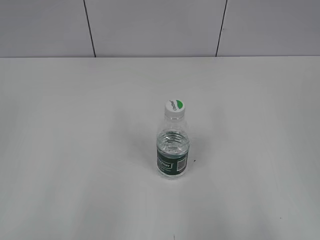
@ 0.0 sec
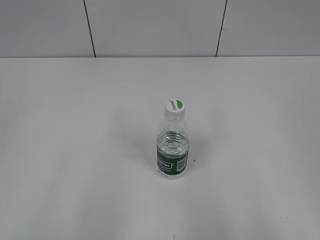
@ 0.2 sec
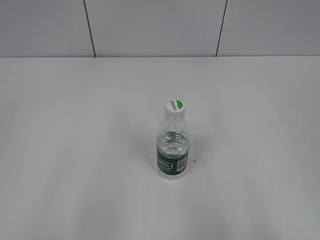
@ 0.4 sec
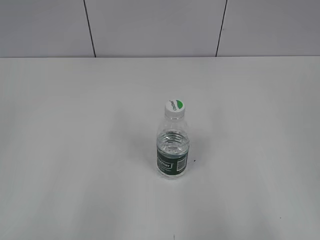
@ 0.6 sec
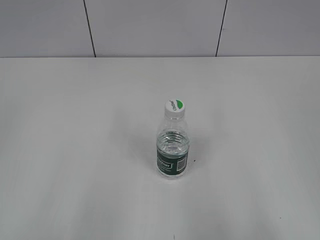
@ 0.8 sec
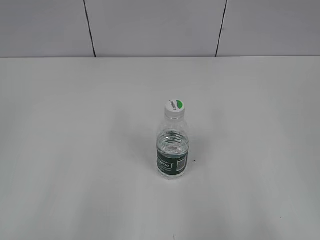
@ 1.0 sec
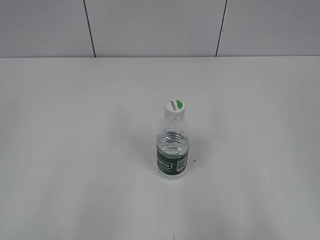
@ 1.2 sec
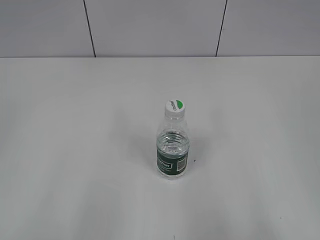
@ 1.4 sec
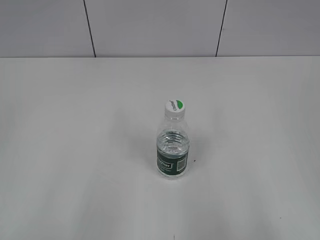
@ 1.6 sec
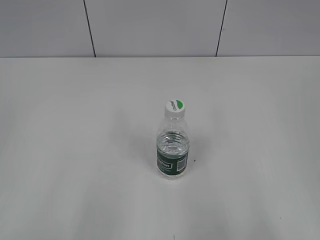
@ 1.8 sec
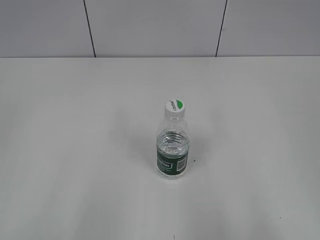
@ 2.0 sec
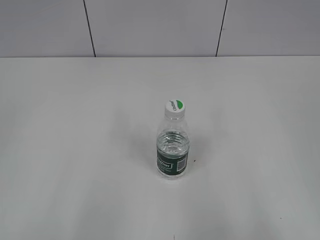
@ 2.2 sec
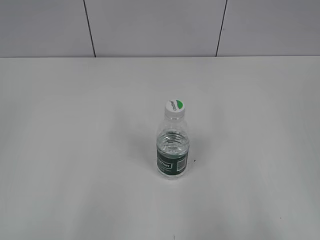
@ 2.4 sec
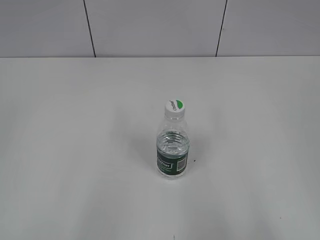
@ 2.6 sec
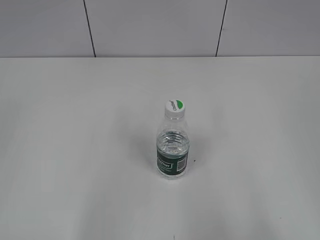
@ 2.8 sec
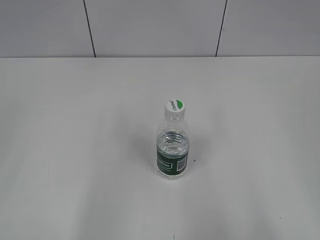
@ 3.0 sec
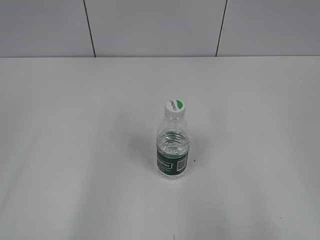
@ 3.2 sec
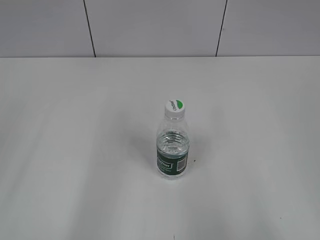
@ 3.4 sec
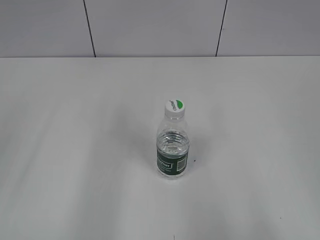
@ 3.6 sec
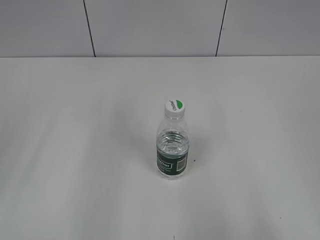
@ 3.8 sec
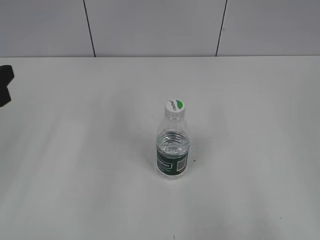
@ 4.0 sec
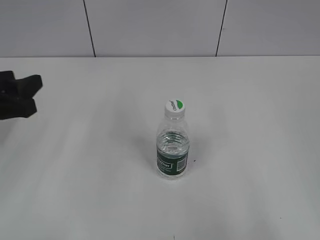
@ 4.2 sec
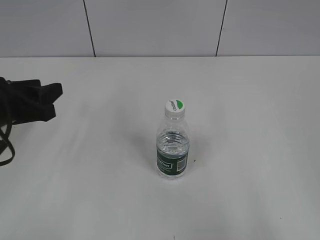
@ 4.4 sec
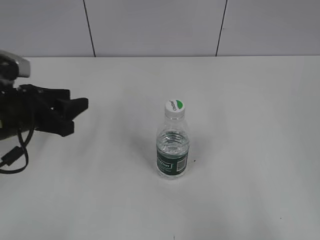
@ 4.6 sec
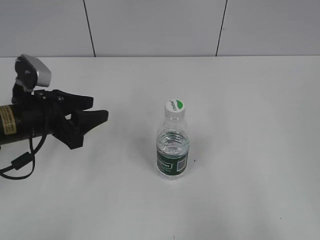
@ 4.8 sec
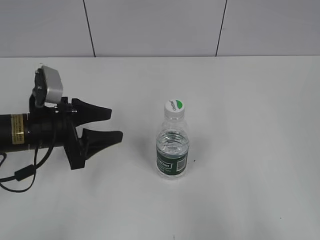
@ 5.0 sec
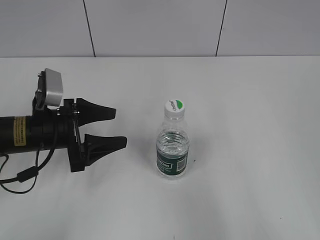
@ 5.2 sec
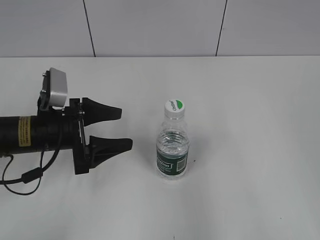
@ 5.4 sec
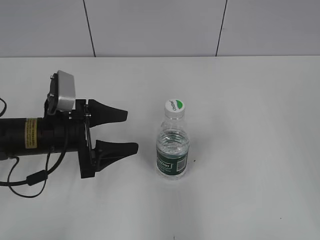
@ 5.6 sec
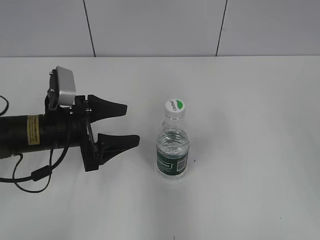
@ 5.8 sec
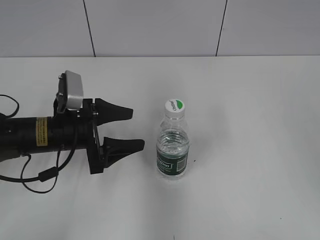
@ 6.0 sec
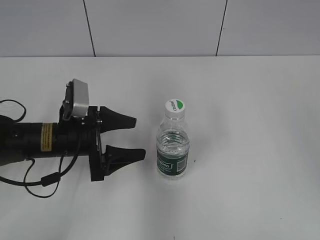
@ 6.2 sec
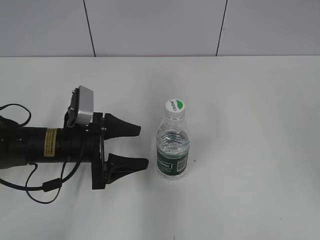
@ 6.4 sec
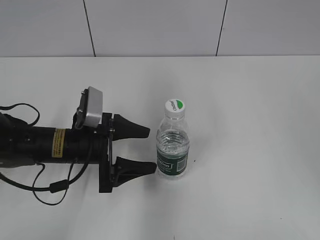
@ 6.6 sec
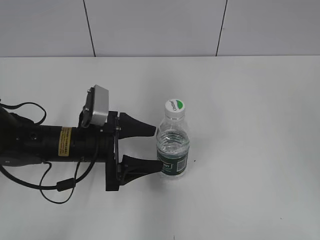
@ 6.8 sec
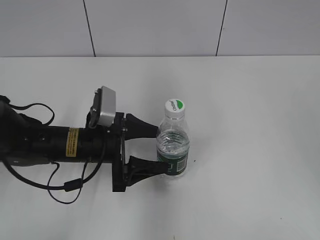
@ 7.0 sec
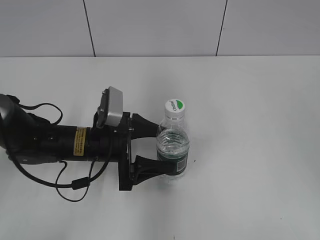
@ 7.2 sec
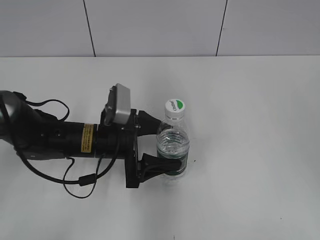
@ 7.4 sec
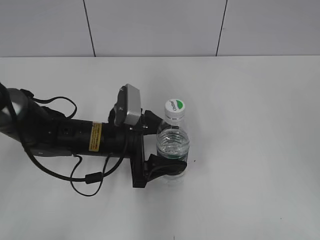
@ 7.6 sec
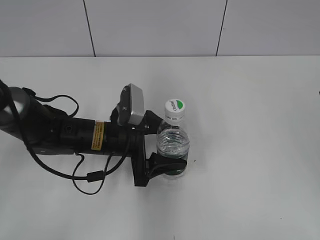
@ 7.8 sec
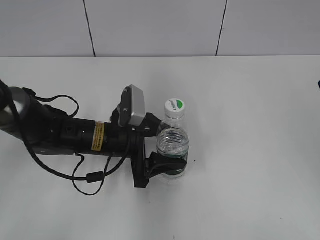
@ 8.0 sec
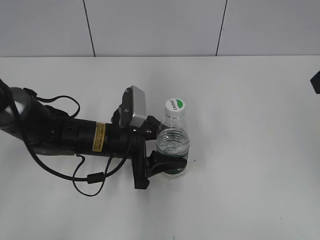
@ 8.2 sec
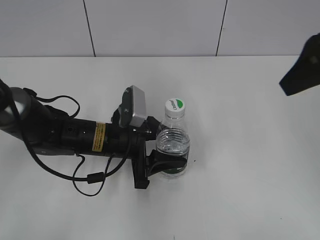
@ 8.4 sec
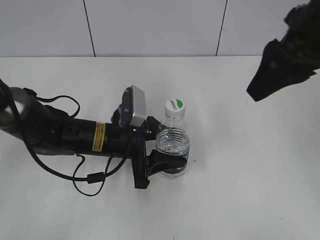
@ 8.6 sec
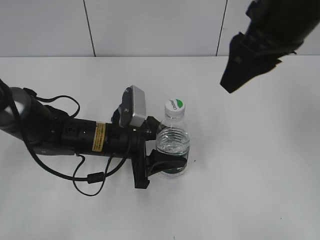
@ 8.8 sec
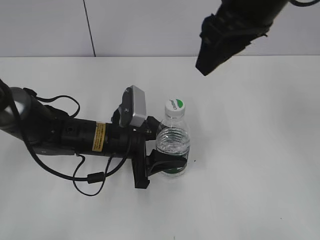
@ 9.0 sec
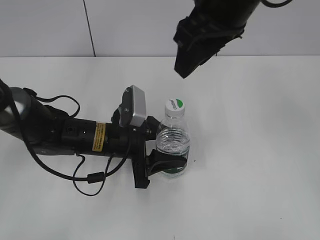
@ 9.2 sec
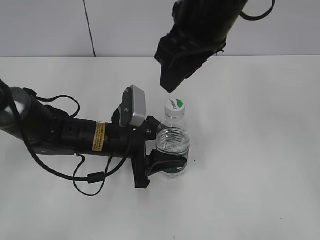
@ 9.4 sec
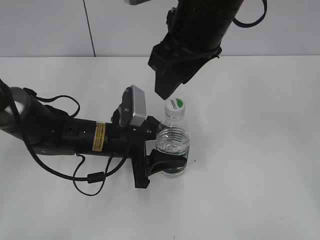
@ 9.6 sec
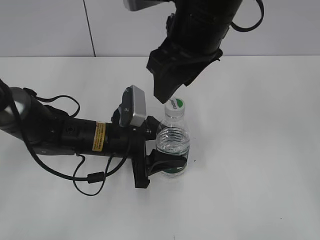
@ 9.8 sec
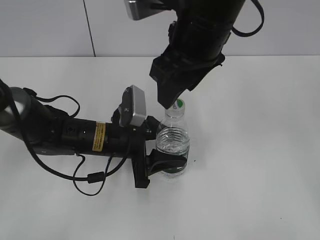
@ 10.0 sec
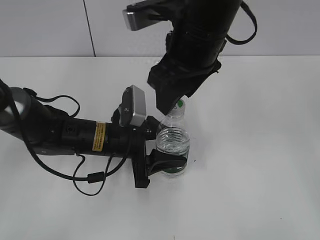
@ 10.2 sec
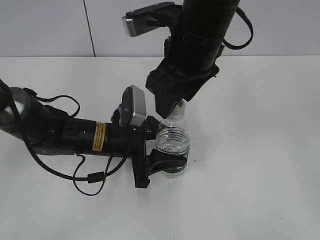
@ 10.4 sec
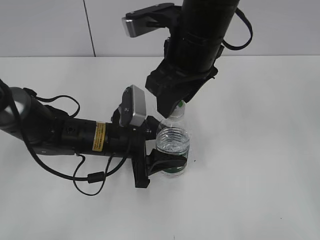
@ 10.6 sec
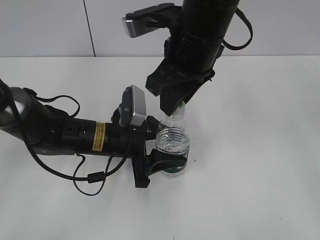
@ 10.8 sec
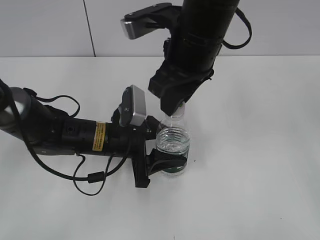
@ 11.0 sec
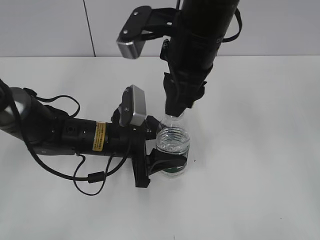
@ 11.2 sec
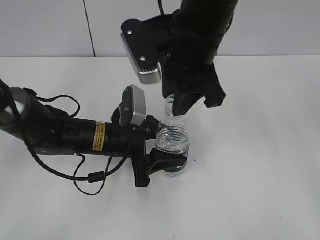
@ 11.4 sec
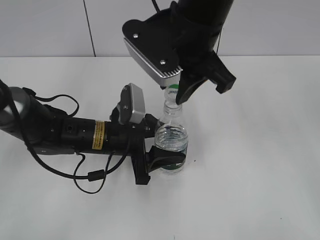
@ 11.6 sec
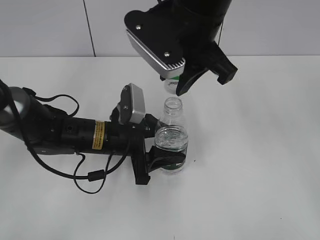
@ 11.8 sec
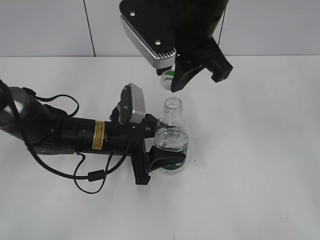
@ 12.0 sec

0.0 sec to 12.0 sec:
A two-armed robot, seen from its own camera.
Step, 0.0 sec to 8.4 sec: Grasp the bottle and move it to the center of the table with the left gripper.
Step, 8.6 sec to 11.6 sec: Unscrew the bottle cap with the right gripper while holding the bottle with the left gripper.
3.0 sec to 4.4 sec: The left gripper travels forward and downward by approximately 25 cm.
4.4 sec to 6.0 sec: The left gripper is displaced to the right and downward by some 10 cm, and opens its fingers, while the right gripper shifts approximately 15 cm forward.
6.0 sec to 7.6 sec: The left gripper is displaced to the right by some 10 cm.
7.6 sec to 9.0 sec: The left gripper closes up; the right gripper shifts approximately 20 cm to the left and forward, and closes up.
9.0 sec to 10.4 sec: The right gripper travels downward and to the left by some 10 cm, and opens.
10.4 sec to 12.0 sec: The right gripper closes up.

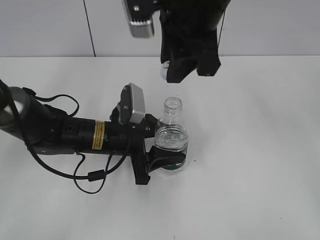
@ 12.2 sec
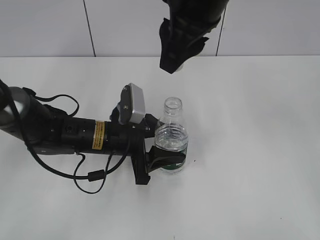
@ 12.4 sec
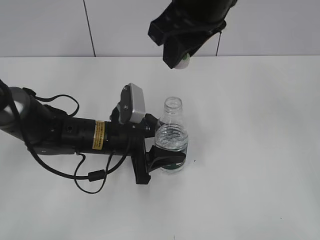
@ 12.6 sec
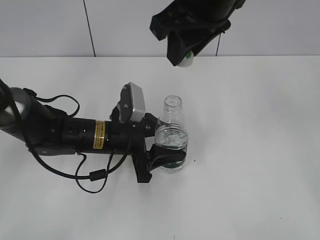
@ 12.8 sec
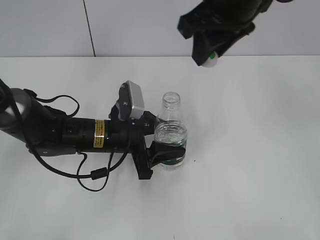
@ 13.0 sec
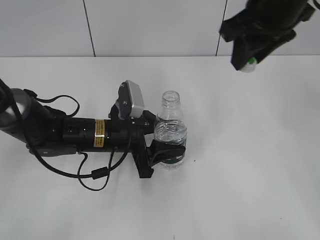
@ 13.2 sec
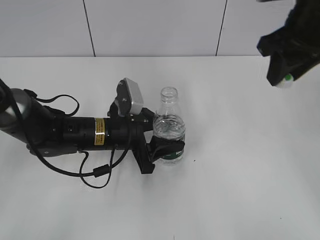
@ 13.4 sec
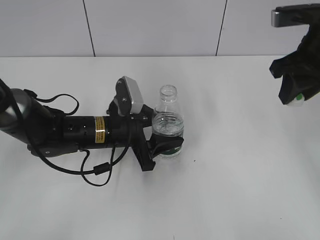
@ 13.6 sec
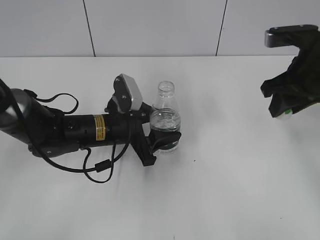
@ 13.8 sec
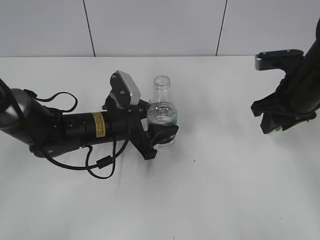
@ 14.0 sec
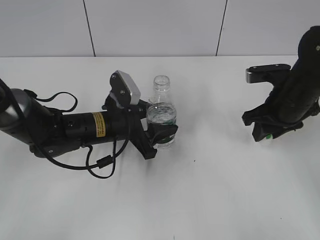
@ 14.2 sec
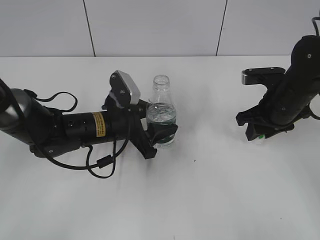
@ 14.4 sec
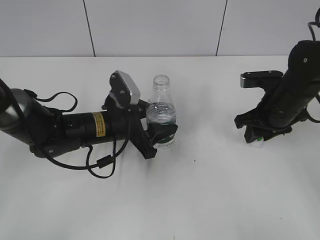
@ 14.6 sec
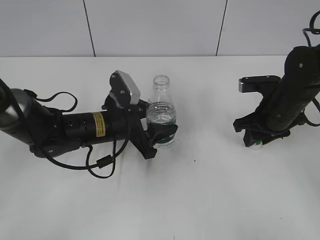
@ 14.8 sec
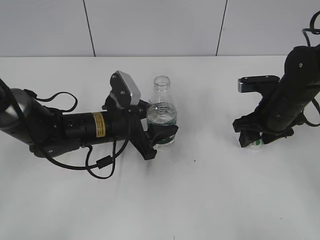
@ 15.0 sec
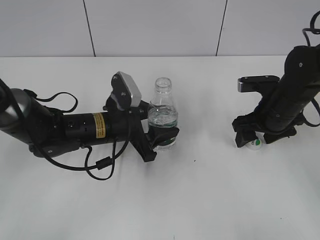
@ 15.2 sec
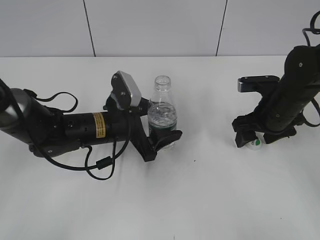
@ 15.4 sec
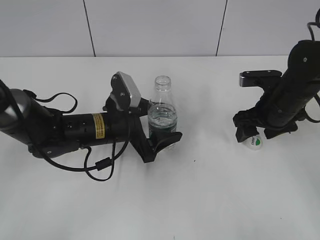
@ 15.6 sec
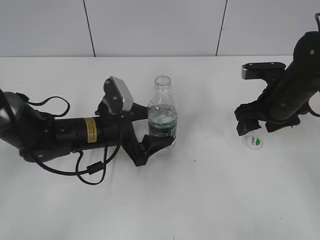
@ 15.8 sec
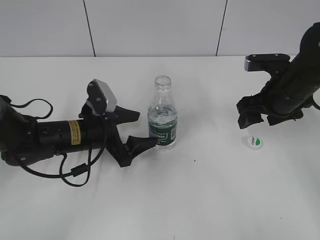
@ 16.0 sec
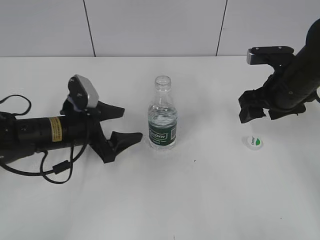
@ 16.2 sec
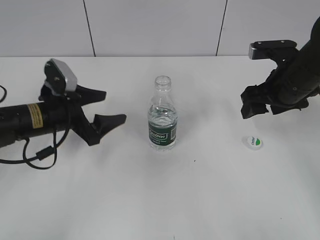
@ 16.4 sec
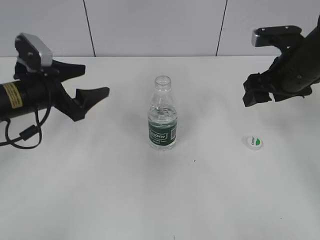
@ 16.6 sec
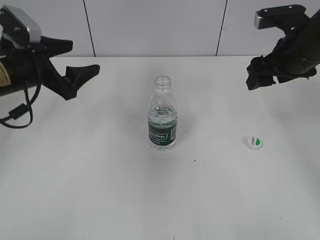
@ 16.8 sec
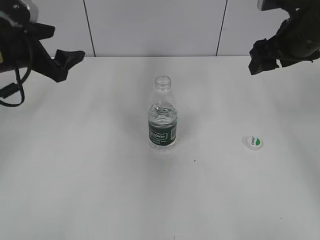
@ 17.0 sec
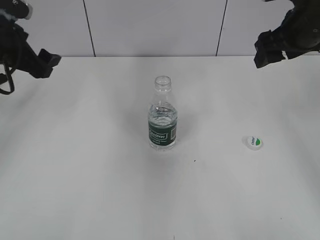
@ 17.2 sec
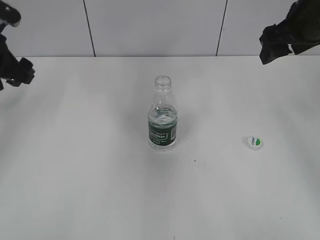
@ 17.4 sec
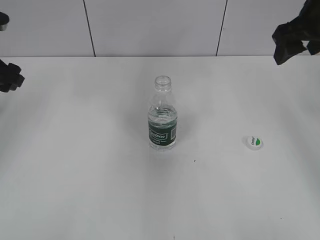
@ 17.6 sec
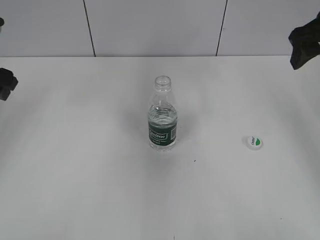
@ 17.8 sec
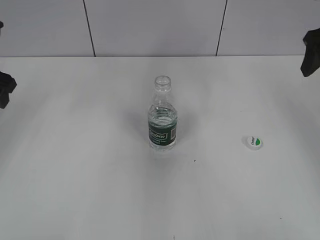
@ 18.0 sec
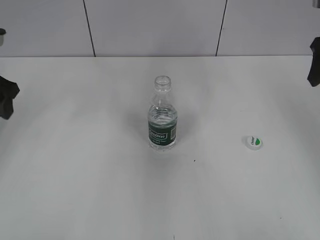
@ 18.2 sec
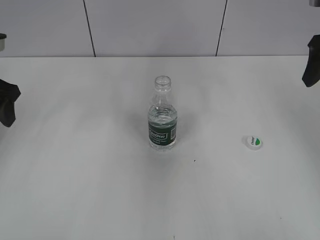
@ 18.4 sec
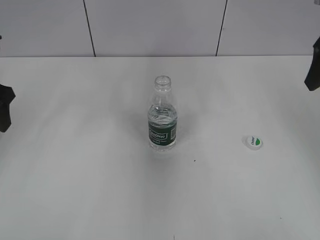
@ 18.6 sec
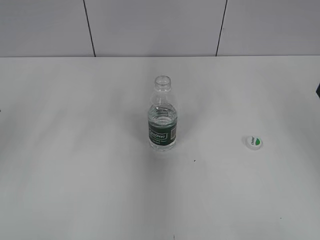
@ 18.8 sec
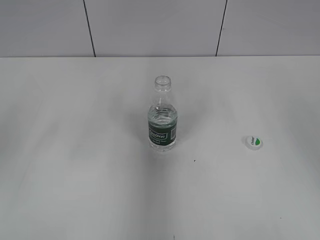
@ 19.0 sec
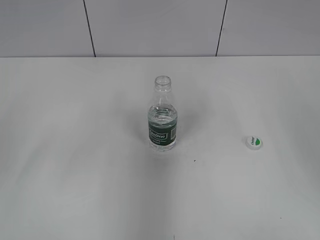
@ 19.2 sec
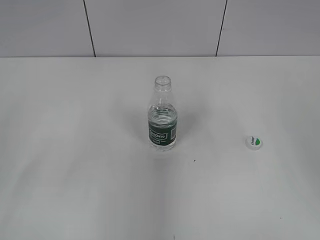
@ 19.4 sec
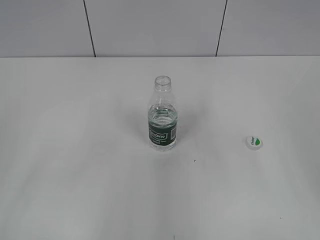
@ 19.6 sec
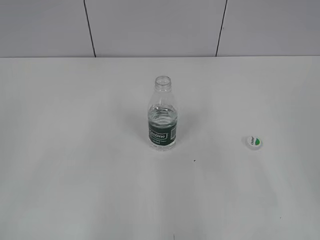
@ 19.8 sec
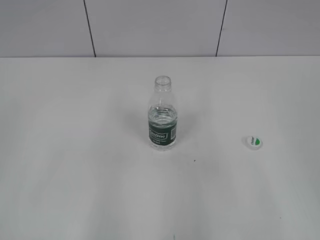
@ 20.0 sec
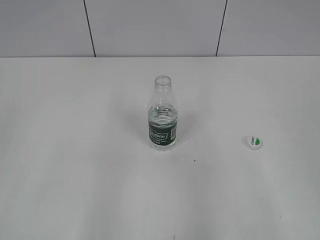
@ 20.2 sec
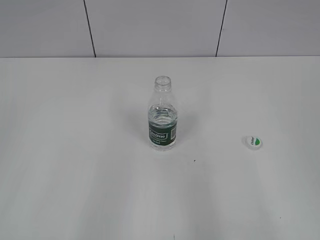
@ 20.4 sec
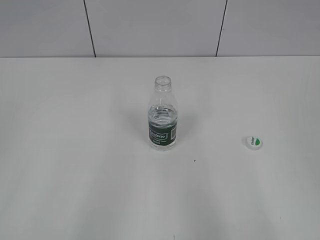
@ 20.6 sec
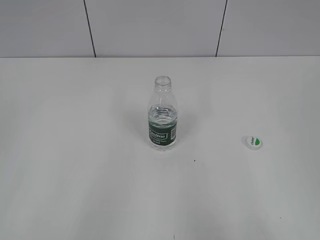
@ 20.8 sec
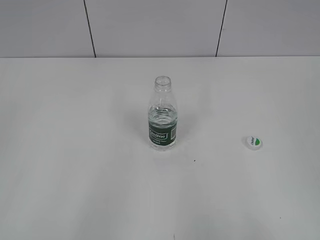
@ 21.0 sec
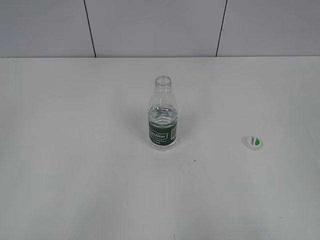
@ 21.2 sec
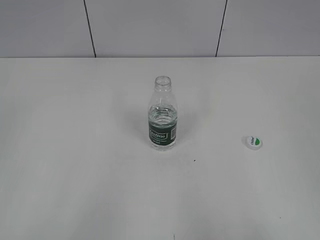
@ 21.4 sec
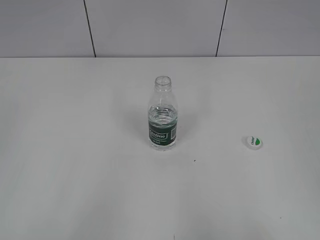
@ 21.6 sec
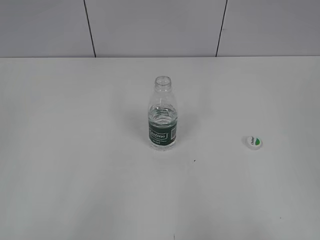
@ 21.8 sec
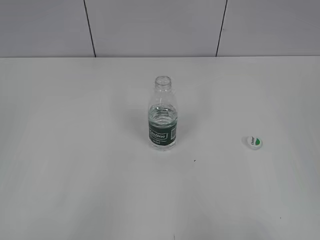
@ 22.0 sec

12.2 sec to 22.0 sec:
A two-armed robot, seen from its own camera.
Step, 12.2 sec to 15.0 sec: Place the bottle cap on the table with the right gripper.
Step, 15.2 sec to 16.0 sec: Place the bottle on the table with the left gripper.
12.2 sec to 13.6 sec: The right gripper shifts some 20 cm to the right.
13.6 sec to 15.0 sec: The right gripper goes roughly 15 cm downward, and opens.
15.0 sec to 16.4 sec: The right gripper moves upward, about 5 cm, while the left gripper travels to the left by some 10 cm, and opens.
16.4 sec to 17.8 sec: The right gripper moves upward, about 10 cm. The left gripper travels upward and to the left by roughly 15 cm.
17.8 sec to 19.2 sec: The two grippers go some 15 cm backward.
19.2 sec to 20.6 sec: The grippers both shift backward by approximately 15 cm.
